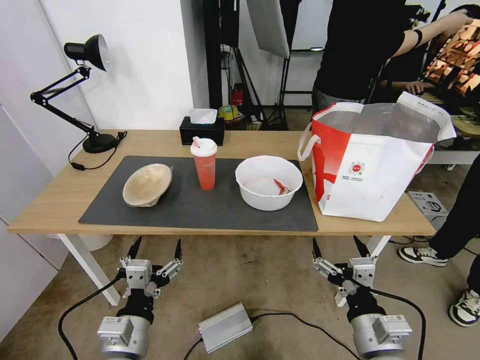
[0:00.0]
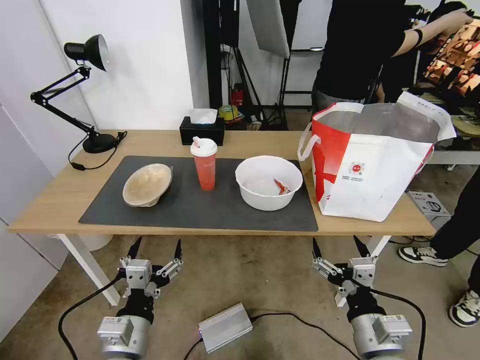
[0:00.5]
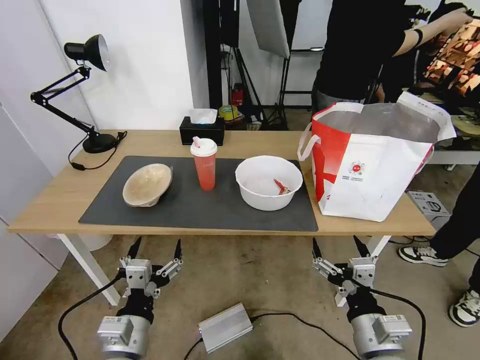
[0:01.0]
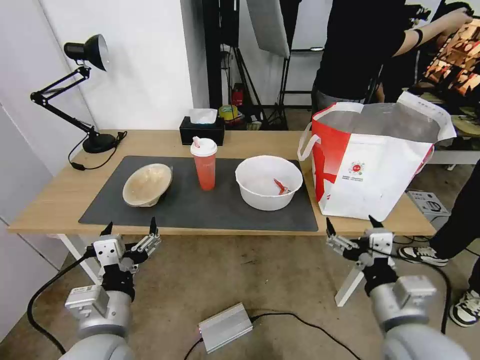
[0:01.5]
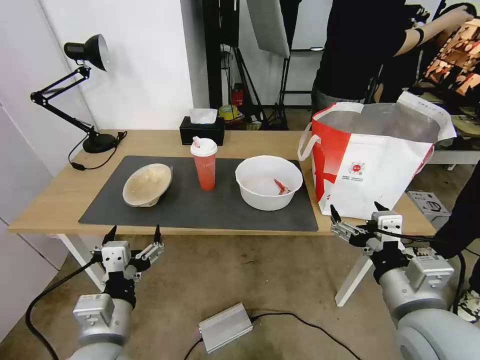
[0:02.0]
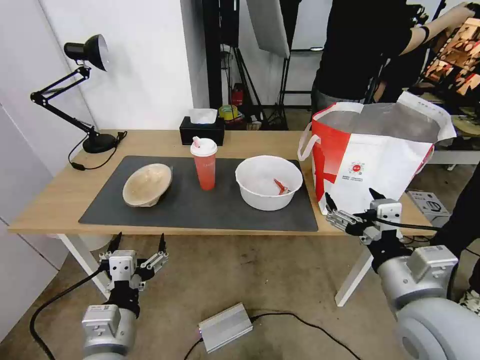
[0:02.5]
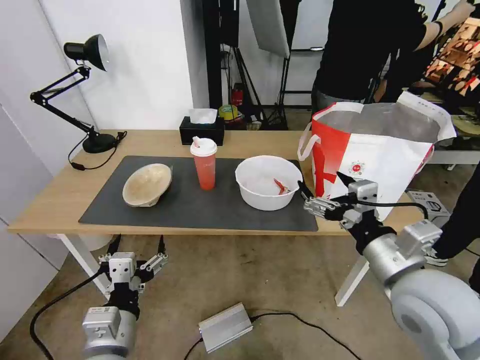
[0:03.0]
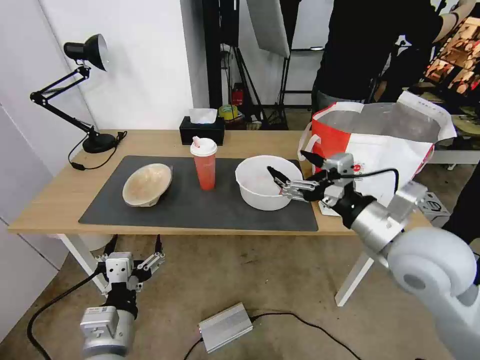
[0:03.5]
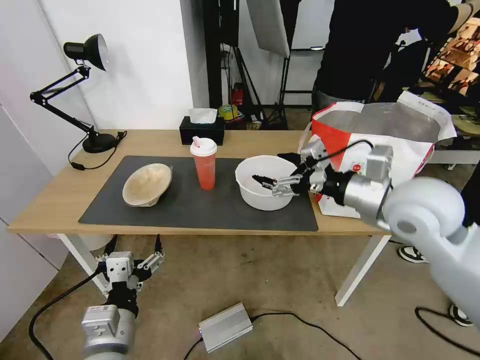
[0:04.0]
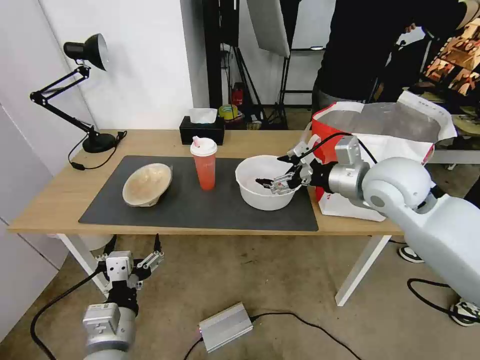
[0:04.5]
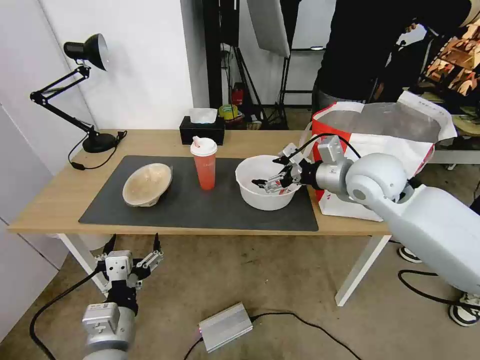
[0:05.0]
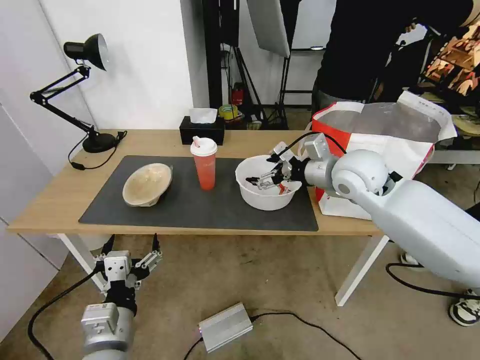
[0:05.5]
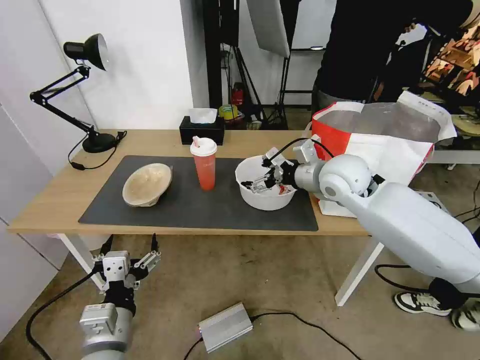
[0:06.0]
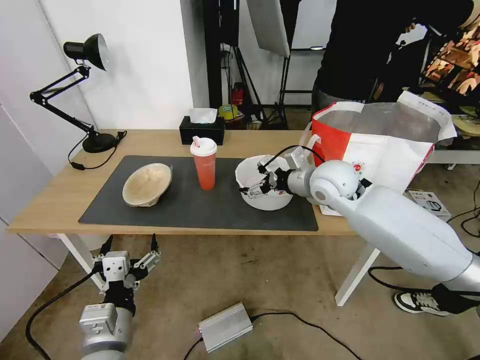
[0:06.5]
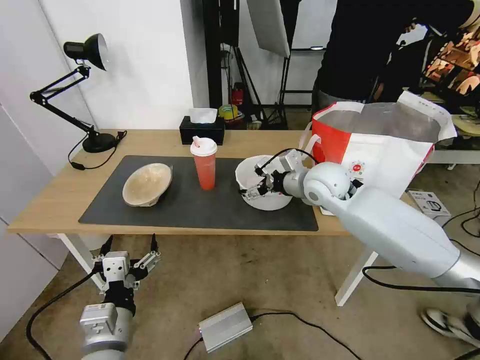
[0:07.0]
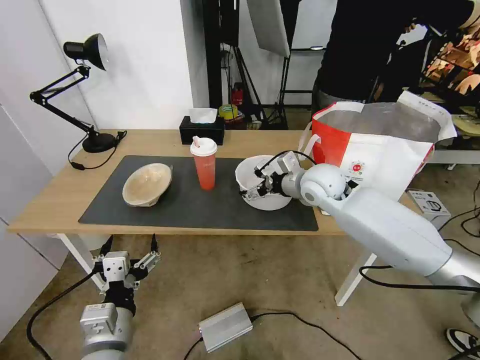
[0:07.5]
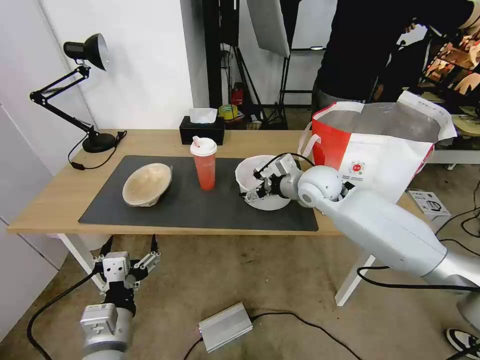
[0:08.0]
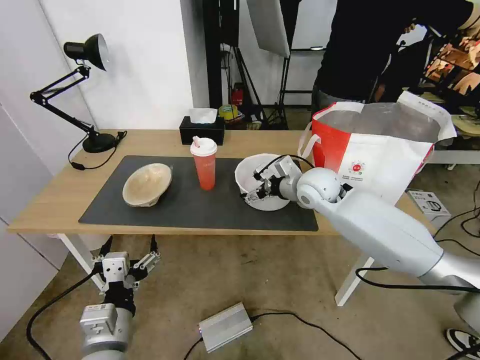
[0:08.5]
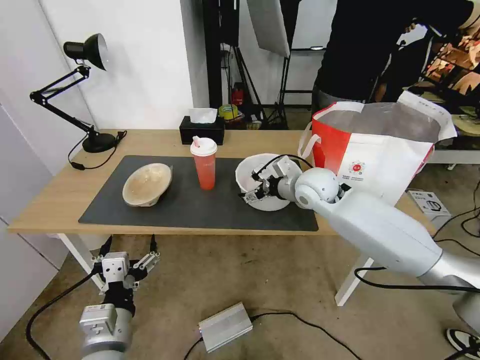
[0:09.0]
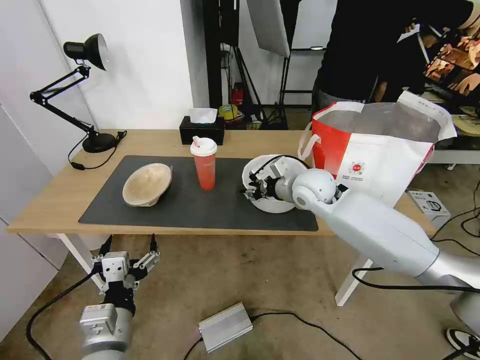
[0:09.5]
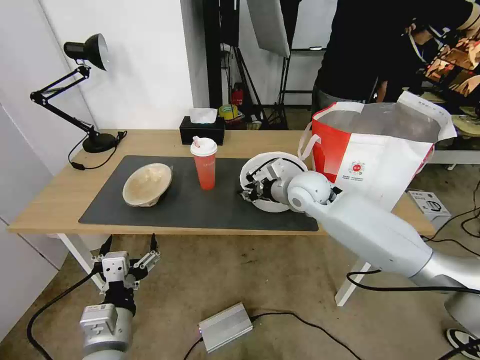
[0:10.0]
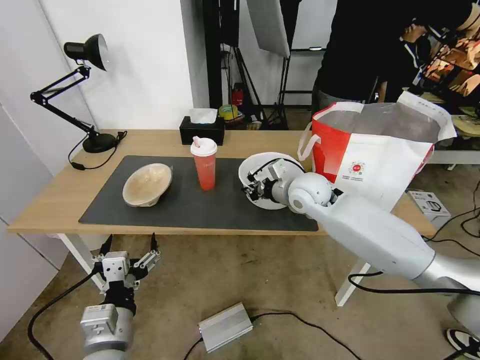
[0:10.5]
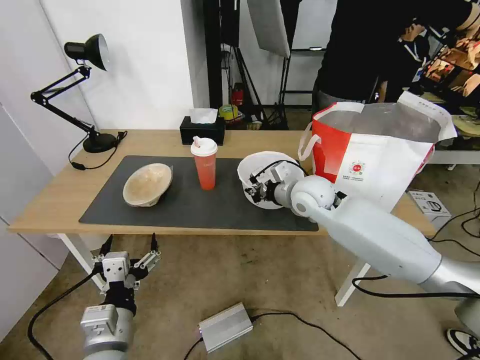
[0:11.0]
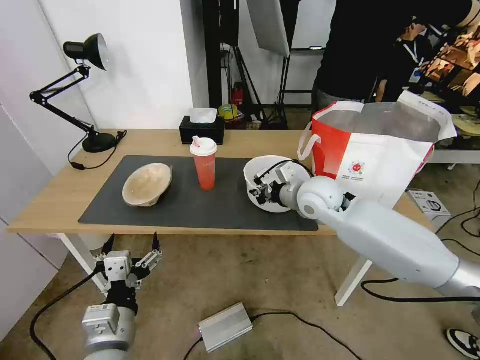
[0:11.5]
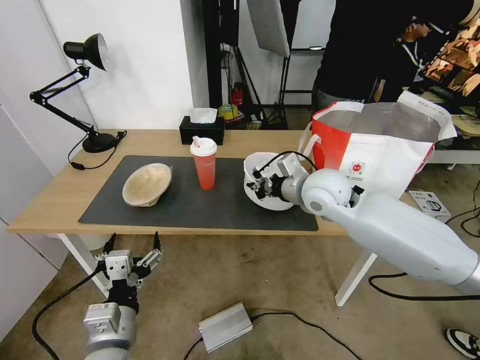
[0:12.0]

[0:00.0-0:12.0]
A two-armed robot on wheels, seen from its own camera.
Task of the whole recording: Pick up the trash from the table and place it into the takeout bag.
0:02.0 to 0:04.0: The right gripper is displaced forward and upward by roughly 20 cm.
0:04.0 to 0:06.0: The right gripper is displaced forward and to the left by about 15 cm.
0:06.0 to 0:08.0: The right gripper travels downward by some 5 cm.
0:08.0 to 0:10.0: The right gripper closes up.
0:10.0 to 0:12.0: The right gripper is displaced backward by some 5 cm, and closes.

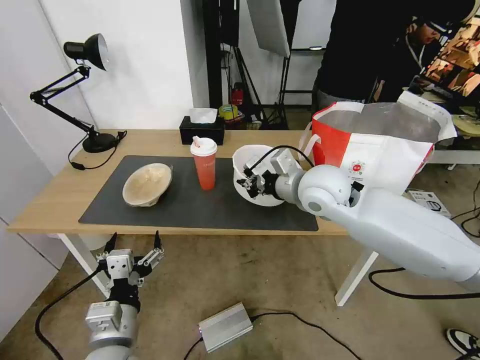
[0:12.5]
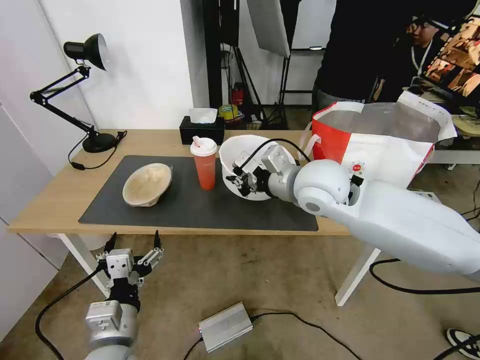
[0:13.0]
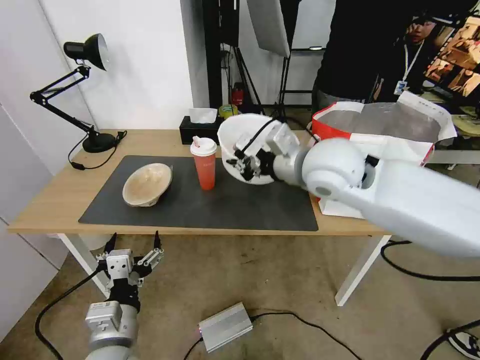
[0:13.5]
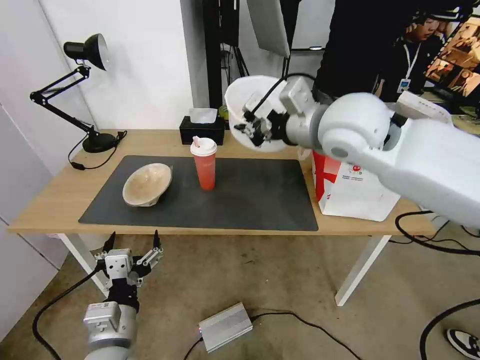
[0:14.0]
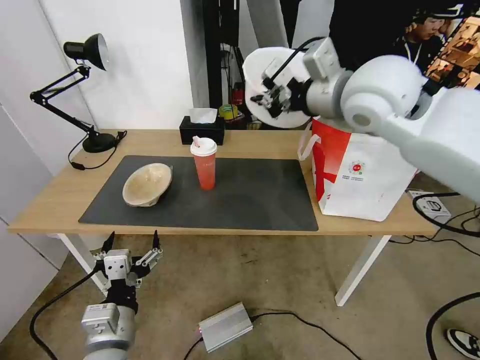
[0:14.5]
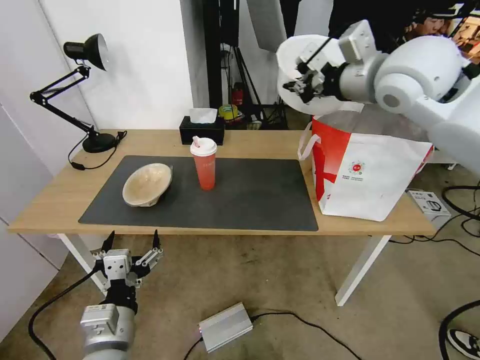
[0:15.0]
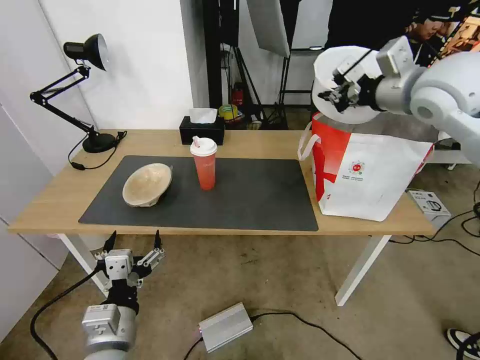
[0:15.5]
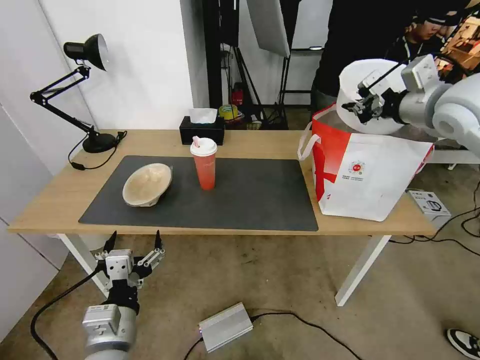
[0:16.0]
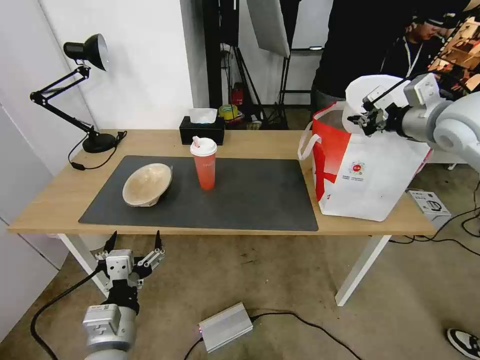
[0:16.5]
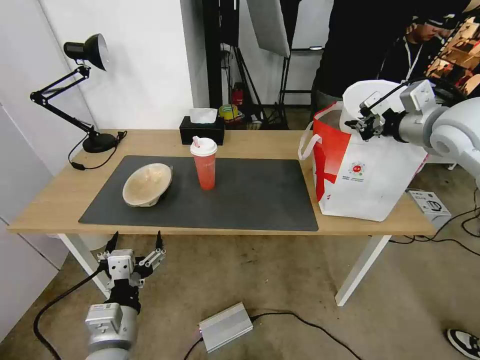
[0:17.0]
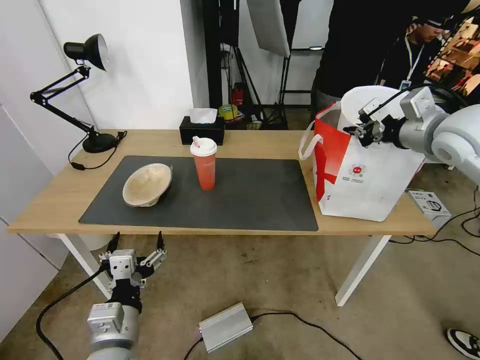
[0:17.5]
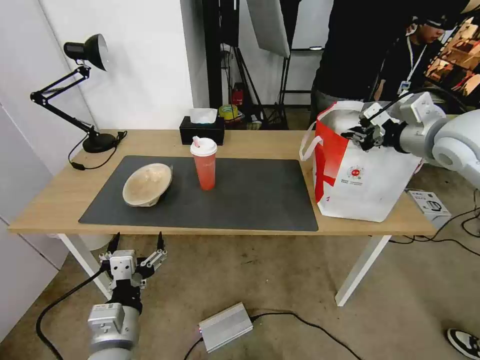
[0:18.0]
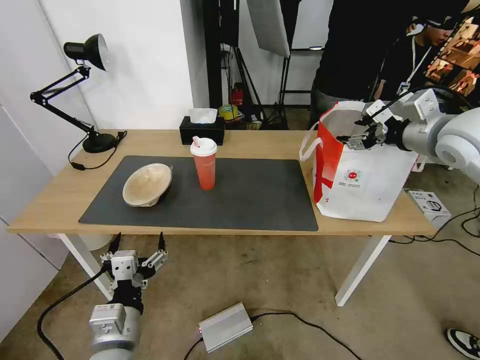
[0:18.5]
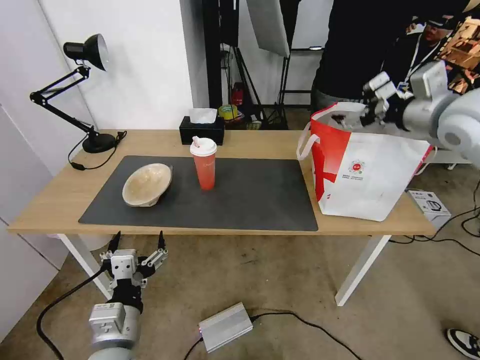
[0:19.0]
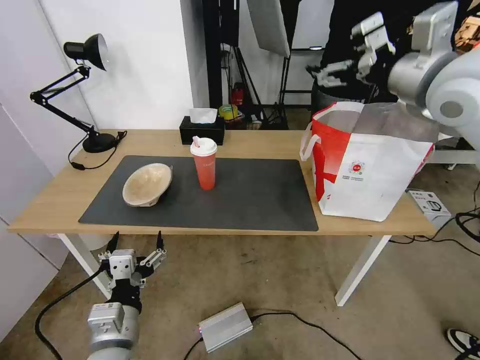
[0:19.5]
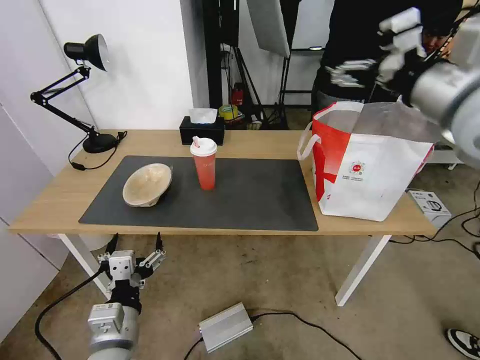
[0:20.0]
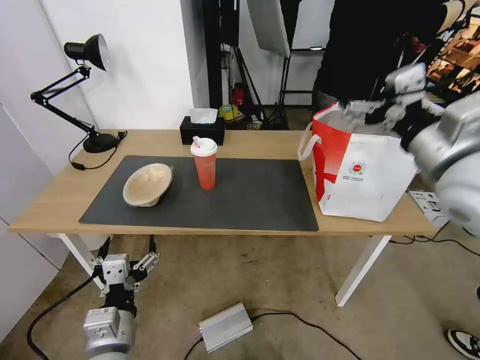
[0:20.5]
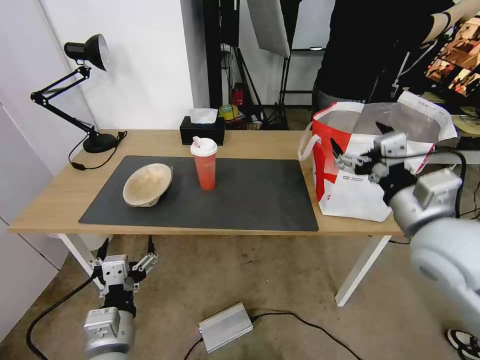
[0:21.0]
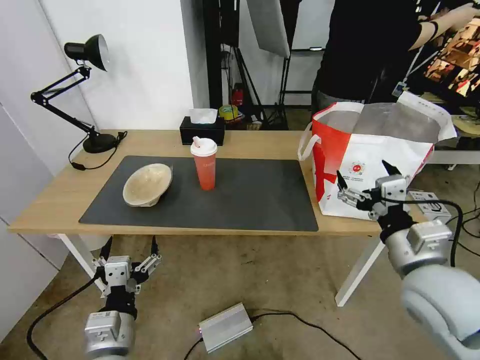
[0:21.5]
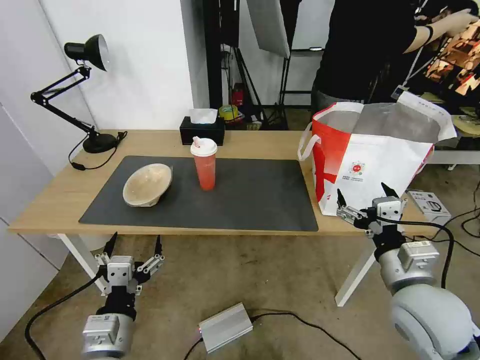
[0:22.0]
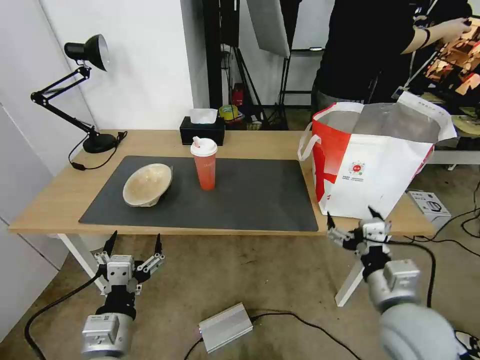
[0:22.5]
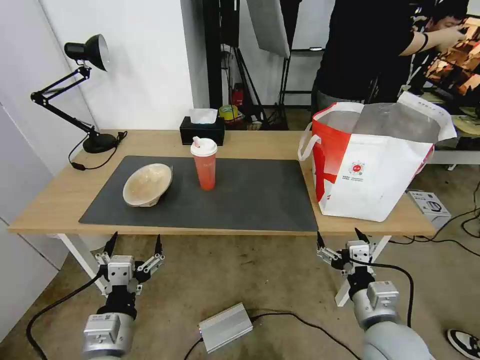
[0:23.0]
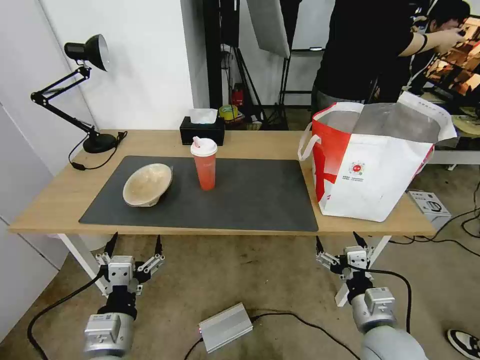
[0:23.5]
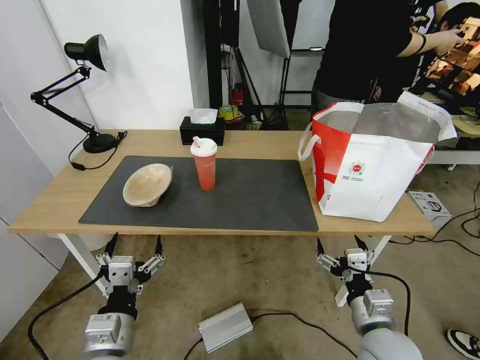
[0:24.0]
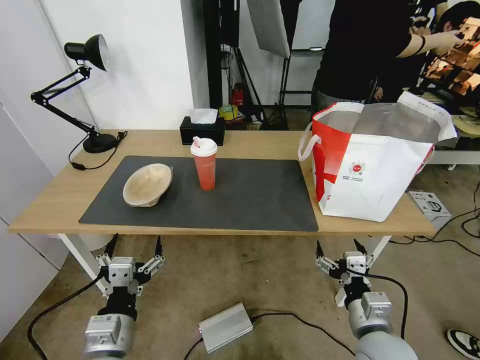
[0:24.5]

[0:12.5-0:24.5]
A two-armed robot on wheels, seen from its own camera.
Task of the whole recording: Pick up the trash from the table and place it into the takeout bag.
0:12.5 to 0:14.5: The right gripper is displaced upward by approximately 20 cm.
0:14.5 to 0:16.5: The right gripper heads to the right, covering roughly 20 cm.
0:16.5 to 0:18.5: The right gripper opens up.
0:18.5 to 0:20.5: The right gripper goes about 15 cm backward and to the left.
0:20.5 to 0:22.5: The right gripper shifts roughly 25 cm downward and backward.
0:22.5 to 0:24.5: The right gripper is displaced downward by roughly 10 cm.

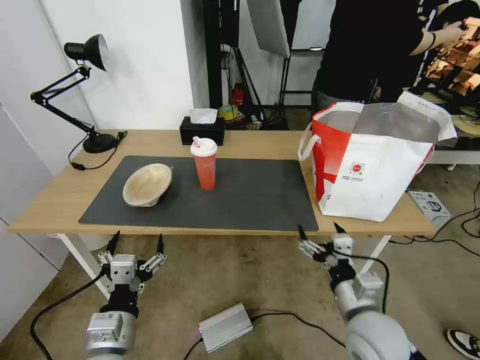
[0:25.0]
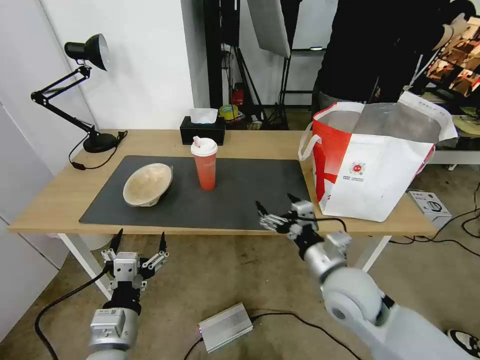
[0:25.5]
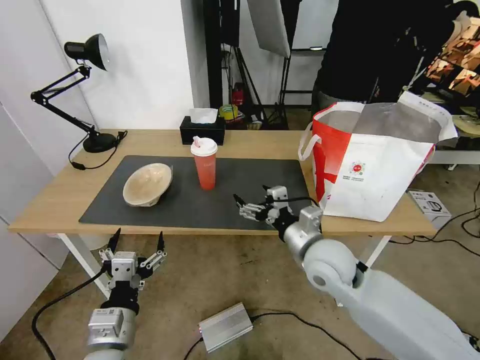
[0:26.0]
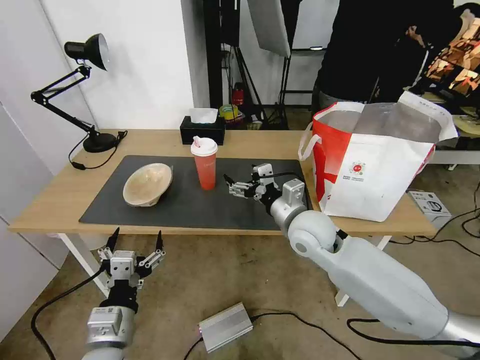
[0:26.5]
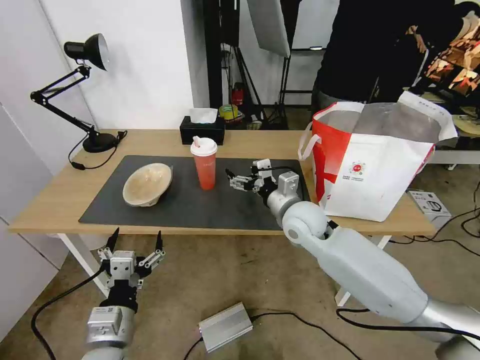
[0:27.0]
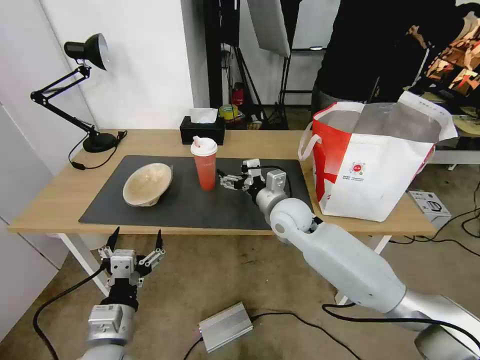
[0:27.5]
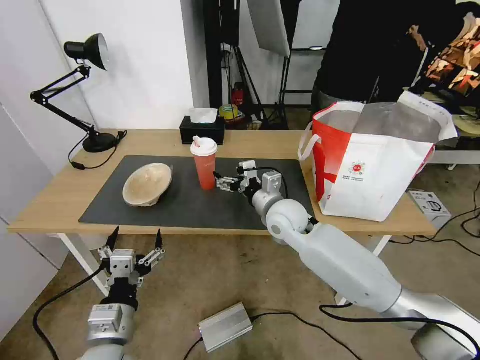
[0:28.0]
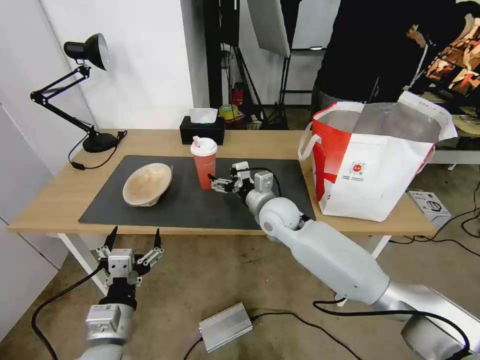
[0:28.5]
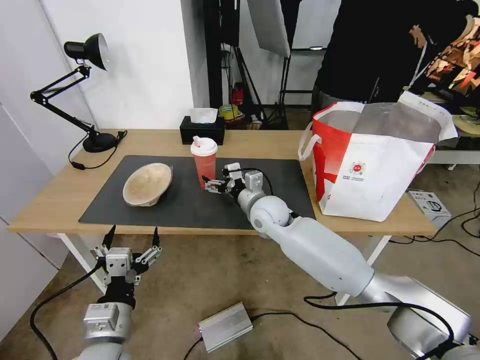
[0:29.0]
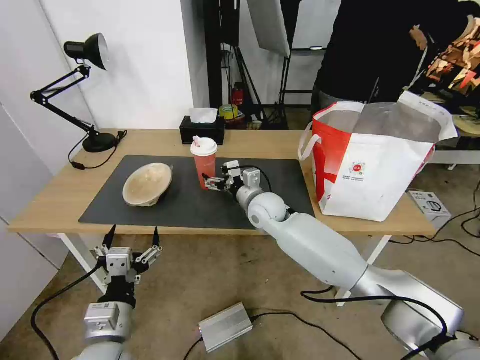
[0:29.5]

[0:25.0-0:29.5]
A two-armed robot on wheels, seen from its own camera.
Task of the whole recording: Pick up the trash from the table and place it into the takeout bag.
0:25.0 to 0:27.0: The right gripper heads forward and to the left, covering approximately 25 cm.
0:27.0 to 0:29.5: The right gripper goes approximately 10 cm to the left and forward.
